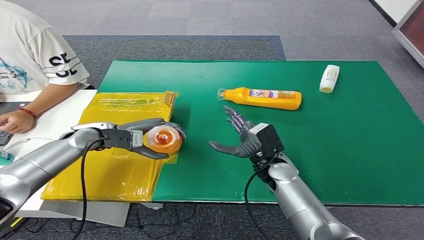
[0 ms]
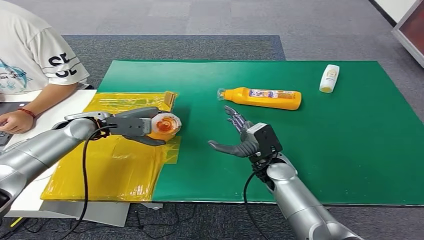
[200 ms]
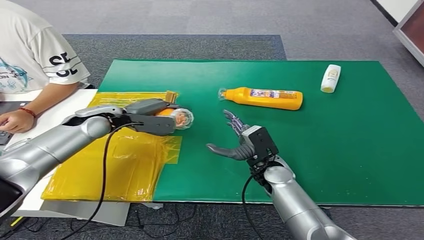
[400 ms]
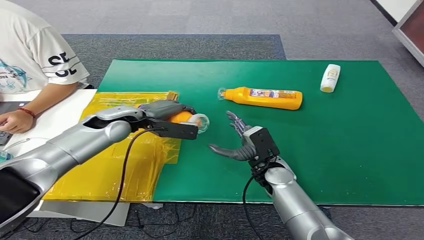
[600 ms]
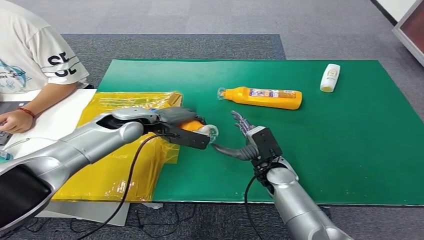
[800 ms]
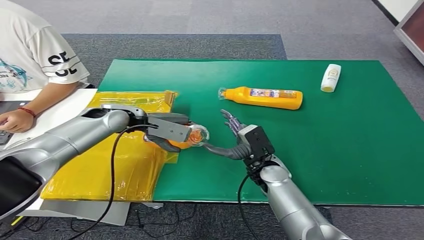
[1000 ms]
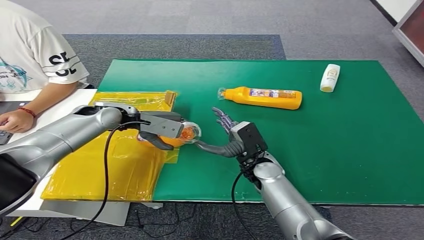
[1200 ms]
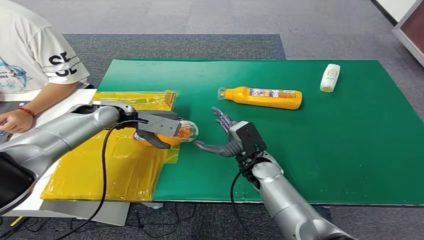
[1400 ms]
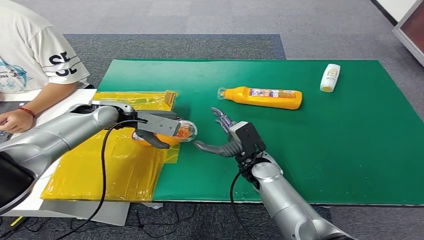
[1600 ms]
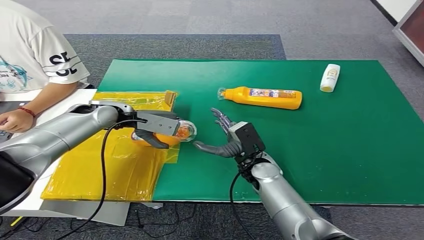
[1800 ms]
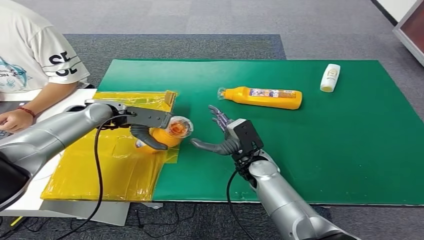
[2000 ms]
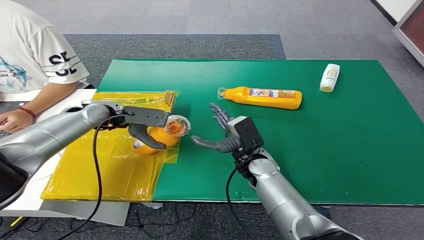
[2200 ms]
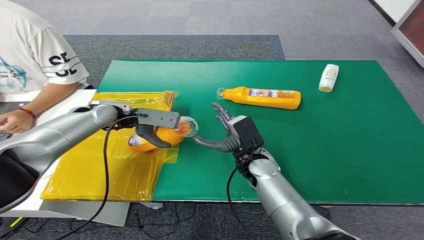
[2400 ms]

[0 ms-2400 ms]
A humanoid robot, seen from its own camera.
Step, 0 ms to 2400 ms: Turn the bottle to the front side.
0 ms to 1200 ms: The left hand shifts by about 10 cm.
1200 ms to 2400 ms: The hands move only a little.

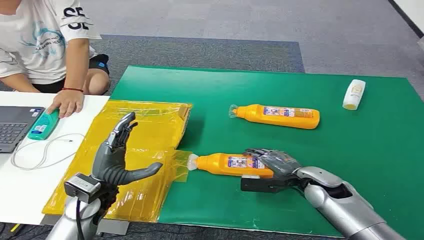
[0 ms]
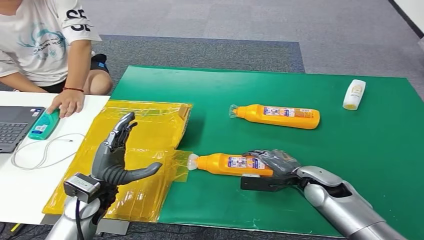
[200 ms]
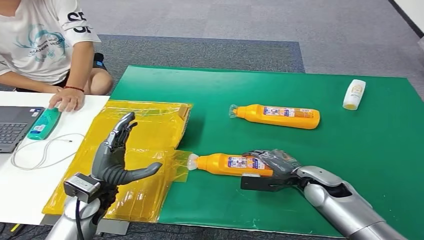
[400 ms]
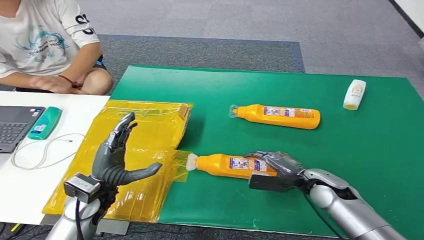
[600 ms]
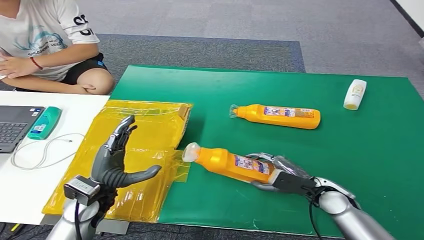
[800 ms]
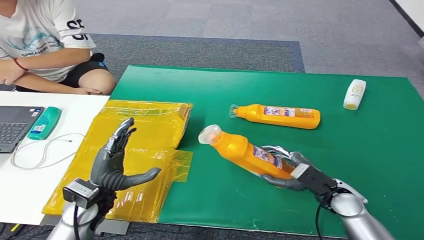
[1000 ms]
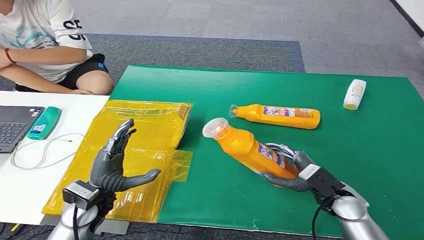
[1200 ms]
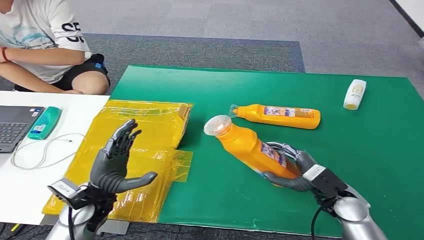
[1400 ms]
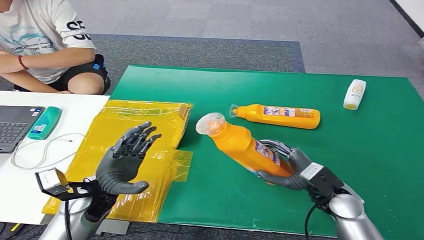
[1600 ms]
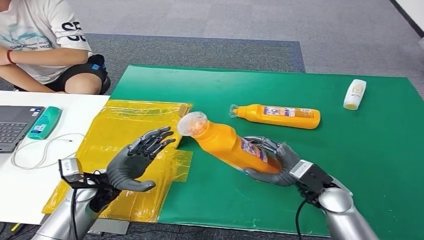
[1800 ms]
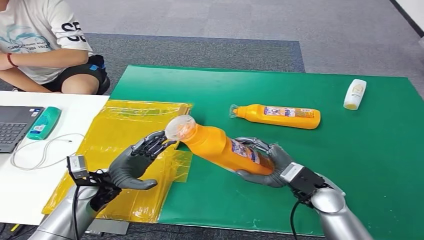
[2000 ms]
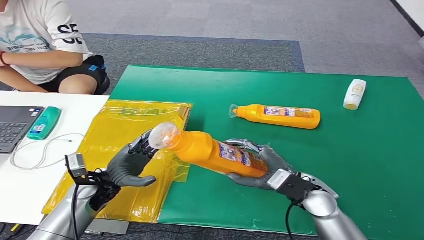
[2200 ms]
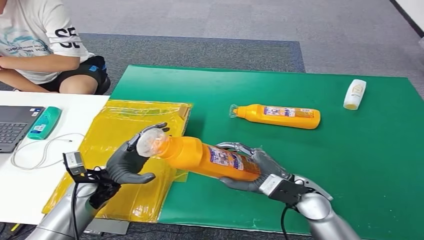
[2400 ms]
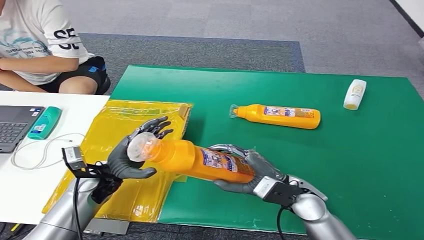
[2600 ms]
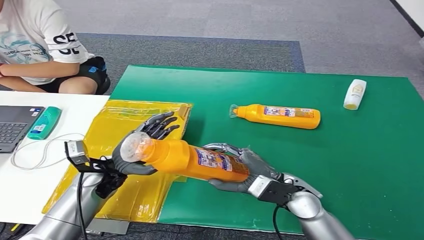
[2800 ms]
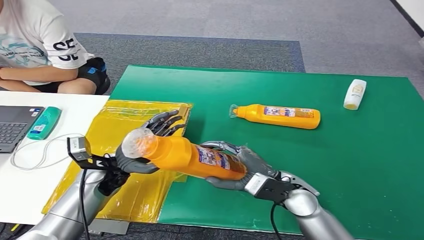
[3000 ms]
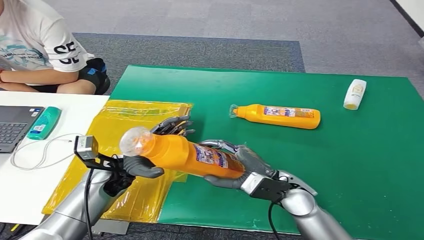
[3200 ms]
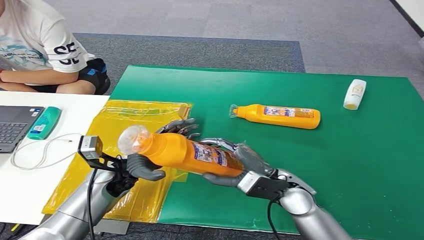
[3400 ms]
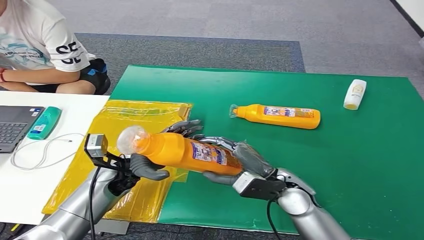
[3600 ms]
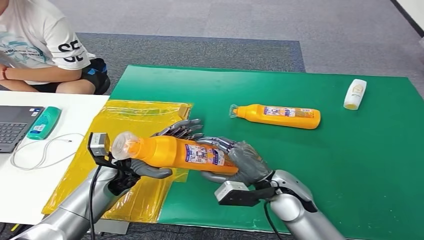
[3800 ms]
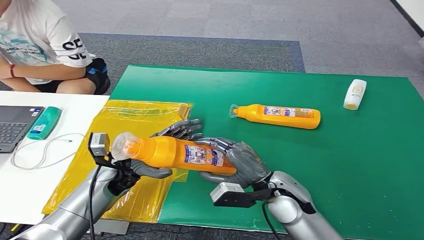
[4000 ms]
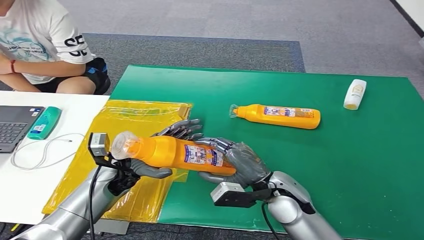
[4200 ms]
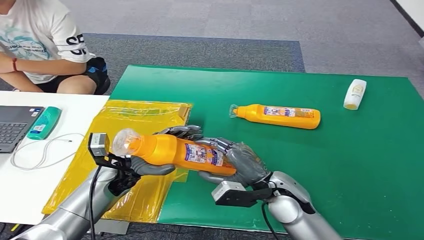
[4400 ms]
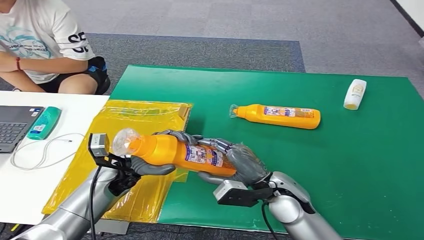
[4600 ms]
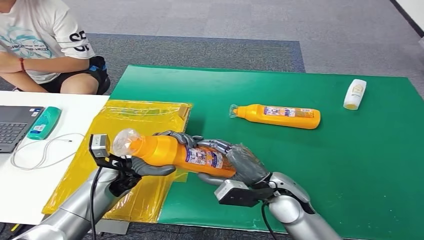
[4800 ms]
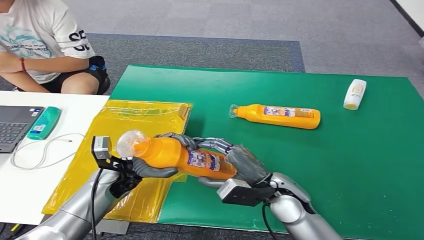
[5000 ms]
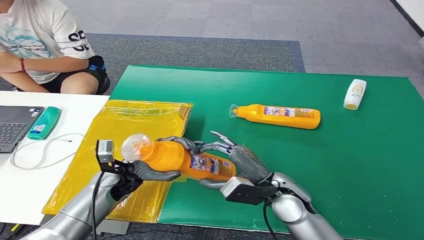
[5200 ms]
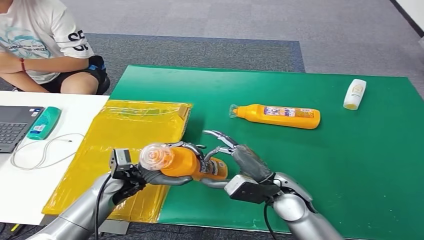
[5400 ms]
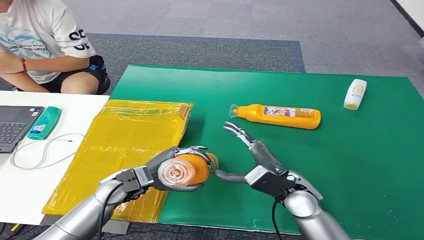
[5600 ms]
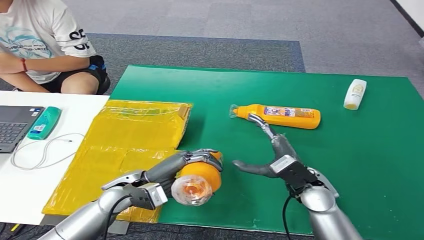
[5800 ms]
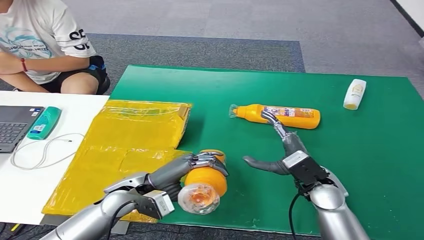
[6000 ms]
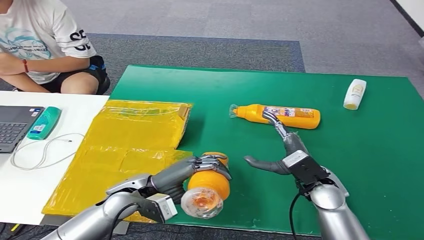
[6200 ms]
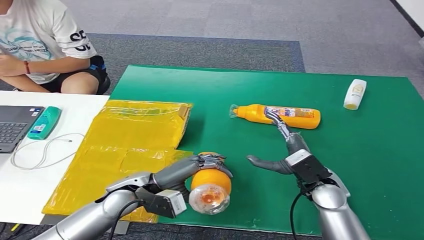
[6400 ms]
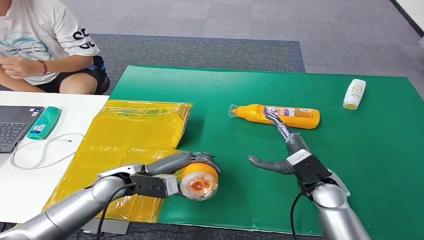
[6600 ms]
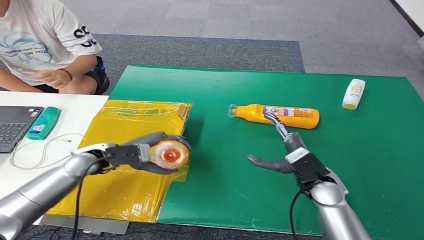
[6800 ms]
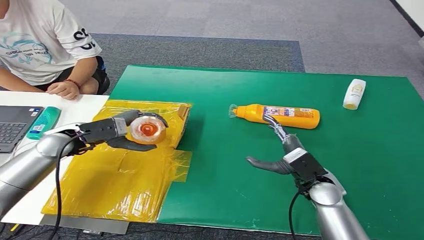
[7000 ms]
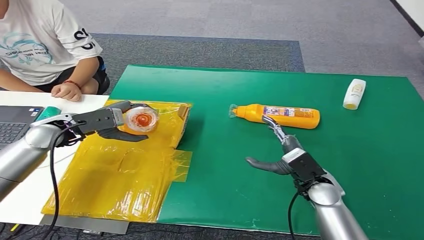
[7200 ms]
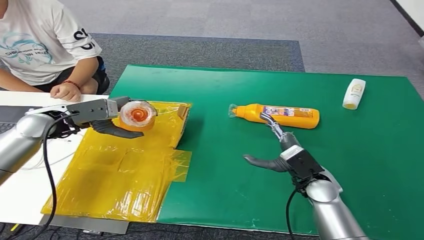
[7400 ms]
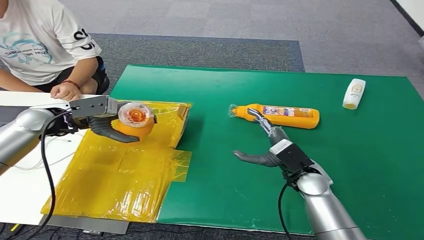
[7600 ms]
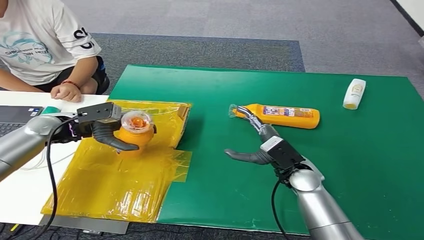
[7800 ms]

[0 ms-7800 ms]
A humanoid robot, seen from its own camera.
Step, 0 ms to 1400 ms: Pick up the bottle from the table.
Step, 1800 ms to 7800 ms: Turn the bottle to the front side.
